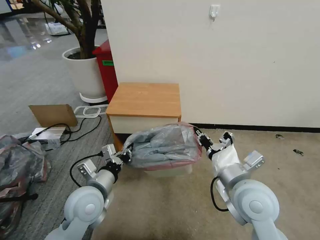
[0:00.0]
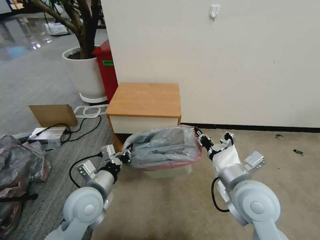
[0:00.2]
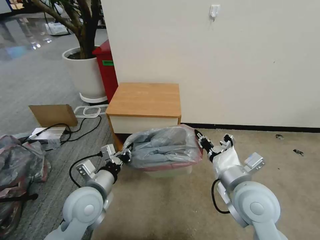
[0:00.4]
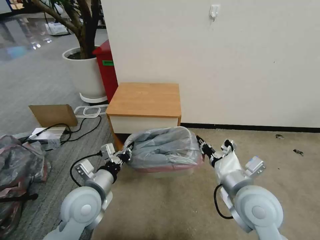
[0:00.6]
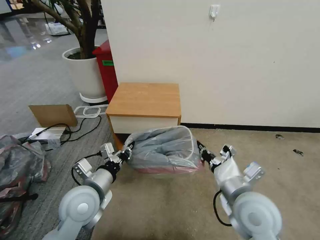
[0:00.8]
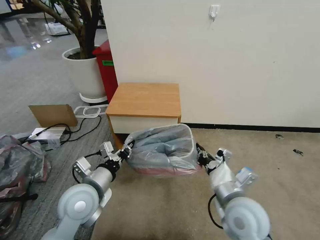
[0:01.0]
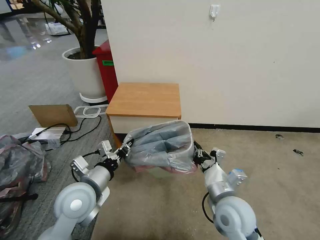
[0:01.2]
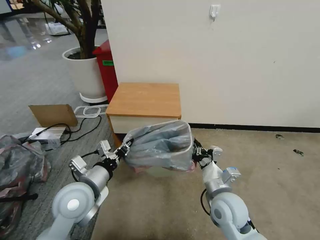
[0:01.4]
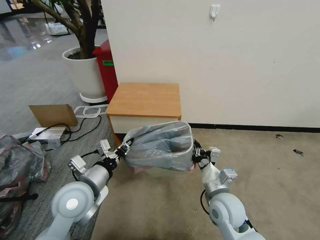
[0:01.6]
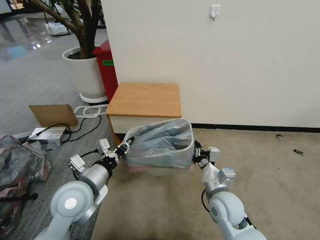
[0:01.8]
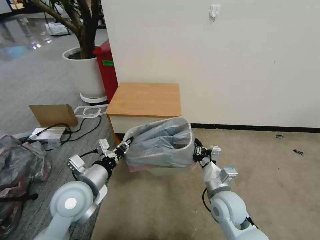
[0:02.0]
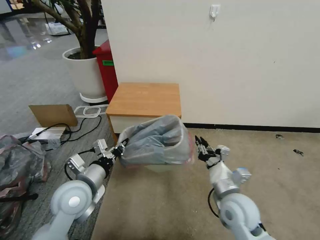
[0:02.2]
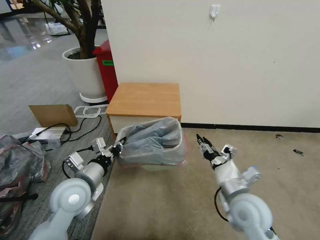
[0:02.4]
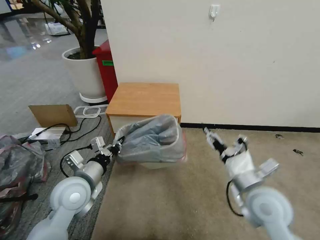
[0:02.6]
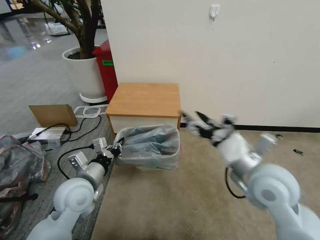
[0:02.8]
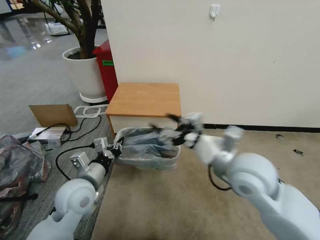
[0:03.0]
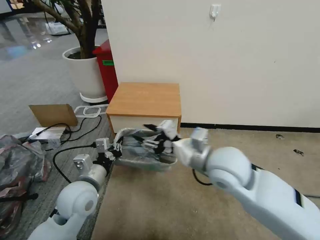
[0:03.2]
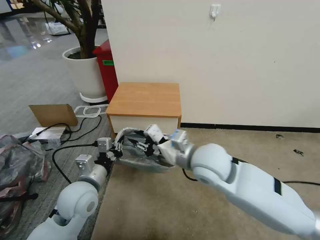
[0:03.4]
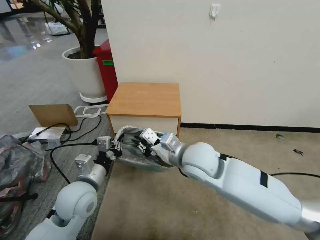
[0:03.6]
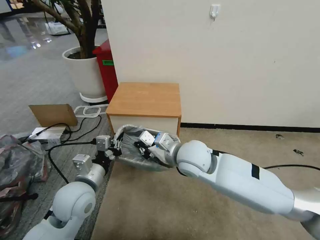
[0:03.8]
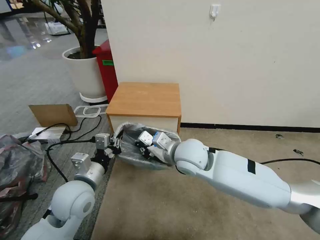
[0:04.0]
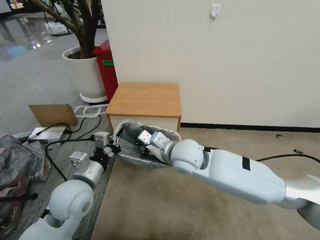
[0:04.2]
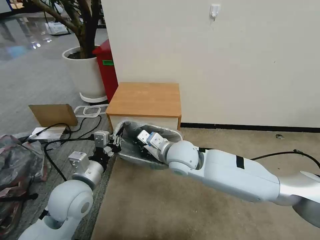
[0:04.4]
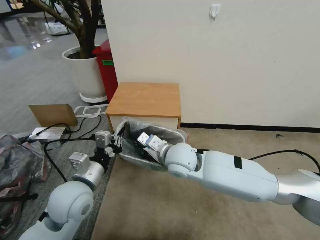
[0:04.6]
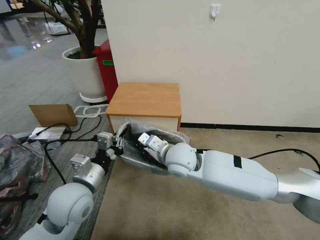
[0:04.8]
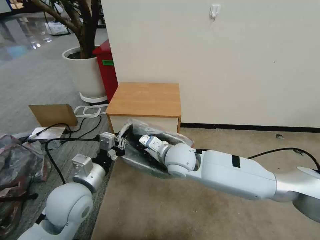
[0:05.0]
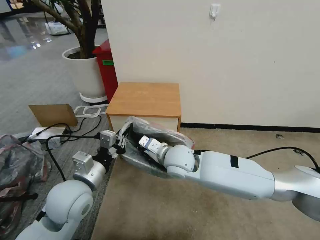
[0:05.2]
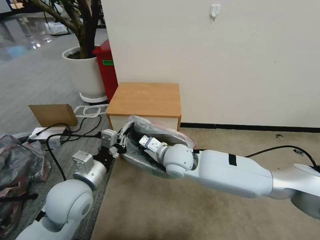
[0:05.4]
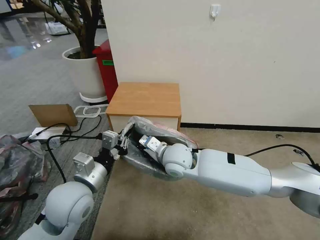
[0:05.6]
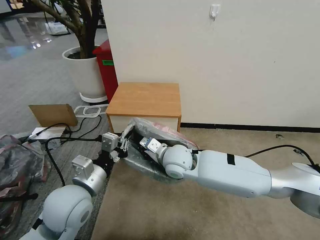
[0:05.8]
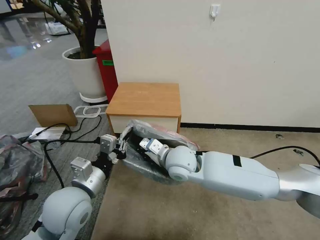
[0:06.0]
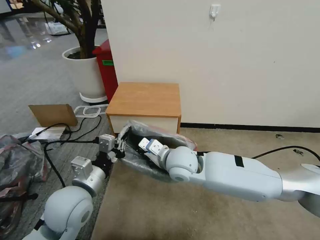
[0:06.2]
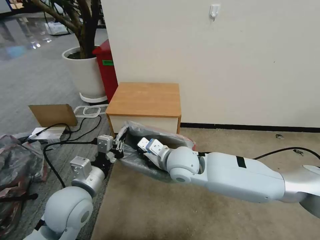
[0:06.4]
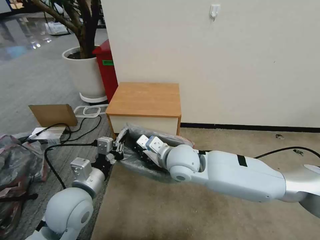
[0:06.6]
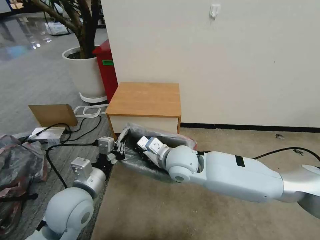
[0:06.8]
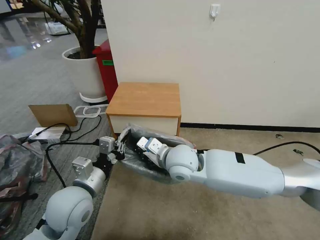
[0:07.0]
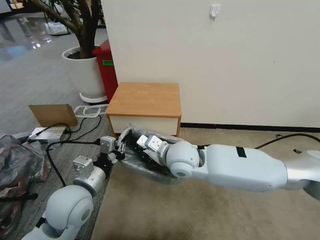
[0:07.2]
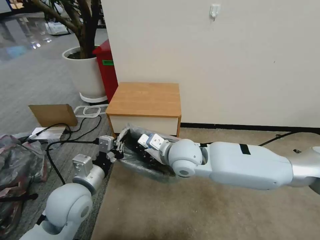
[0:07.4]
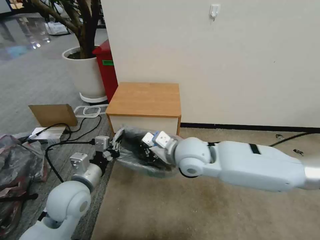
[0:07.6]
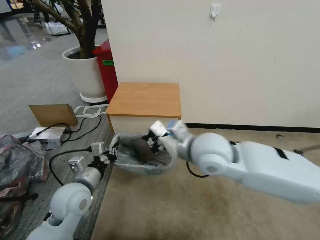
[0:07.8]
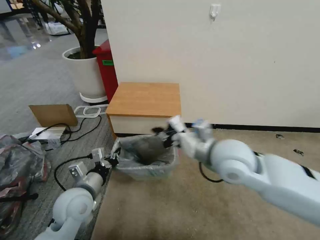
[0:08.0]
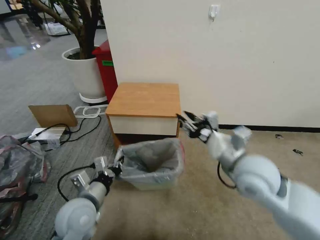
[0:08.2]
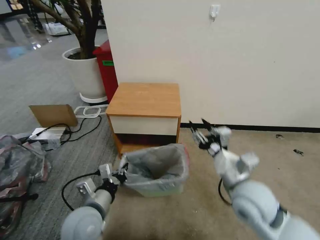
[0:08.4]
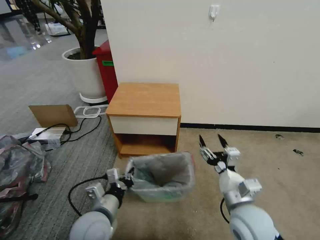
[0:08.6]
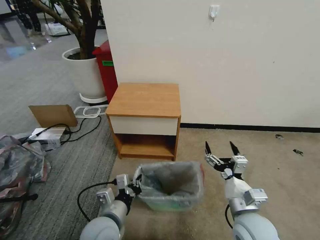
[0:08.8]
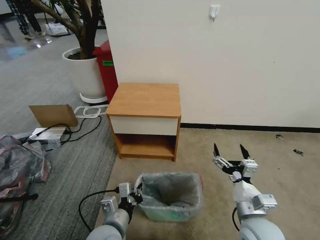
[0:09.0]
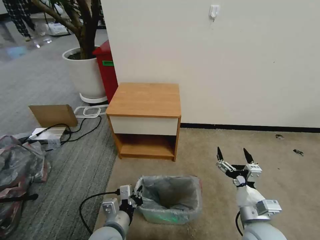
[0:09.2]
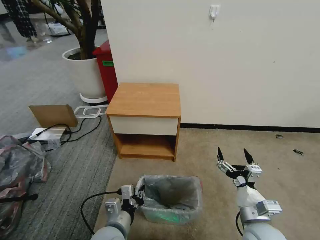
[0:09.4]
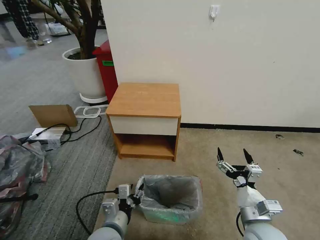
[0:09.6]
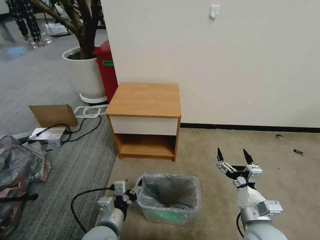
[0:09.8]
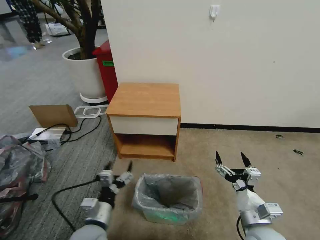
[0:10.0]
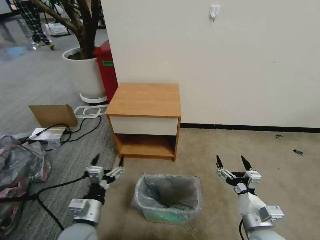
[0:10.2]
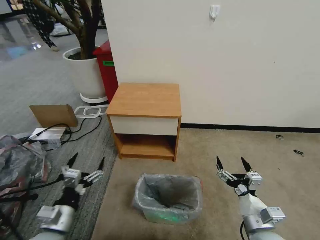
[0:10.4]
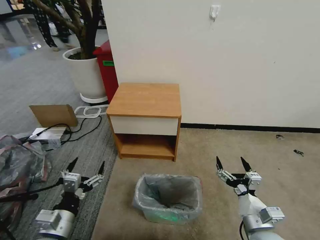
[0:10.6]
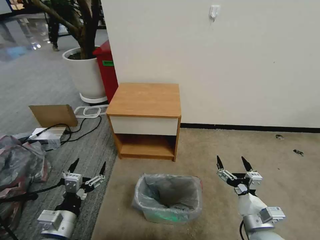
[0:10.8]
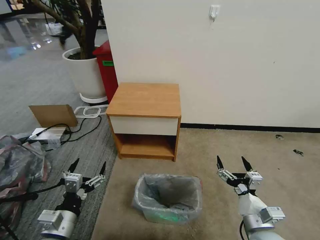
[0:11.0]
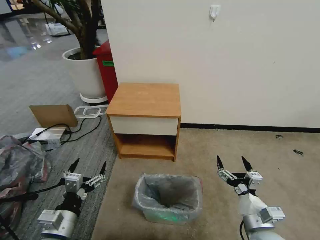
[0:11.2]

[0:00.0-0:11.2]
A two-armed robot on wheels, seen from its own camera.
Task of the whole recording: Pick up the garbage bag from the table and place it over the trash can.
0:00.0 to 0:01.6: The right gripper travels downward by roughly 10 cm.
0:01.6 to 0:03.2: The right gripper goes some 15 cm upward, and opens up.
0:03.2 to 0:04.8: The right gripper shifts some 15 cm to the left, downward and forward, and closes.
0:04.8 to 0:06.4: The grippers move only a little.
0:06.4 to 0:08.0: The right gripper goes roughly 15 cm to the right and upward. Meanwhile the left gripper shifts approximately 5 cm downward.
0:08.0 to 0:09.6: The right gripper moves downward, backward and to the right, roughly 25 cm, and opens its fingers. Meanwhile the left gripper heads to the right, backward and downward, covering about 15 cm, and opens.
0:09.6 to 0:11.2: The left gripper moves to the left, some 15 cm, and opens up.

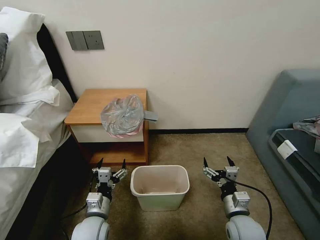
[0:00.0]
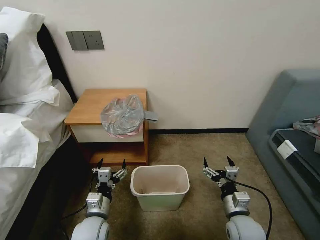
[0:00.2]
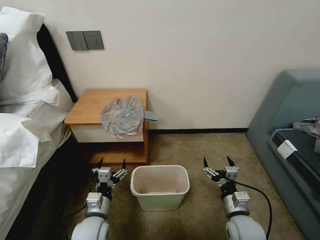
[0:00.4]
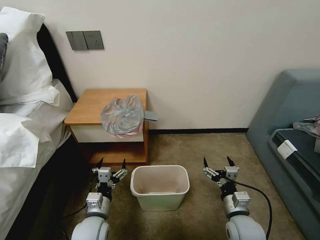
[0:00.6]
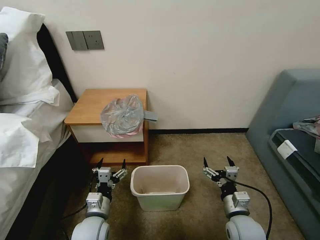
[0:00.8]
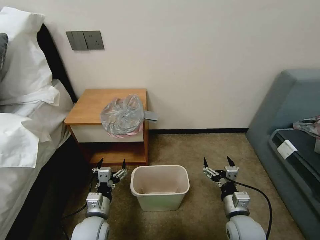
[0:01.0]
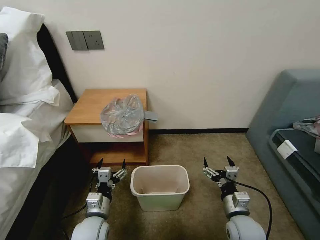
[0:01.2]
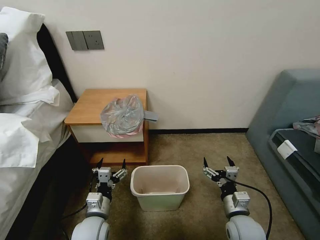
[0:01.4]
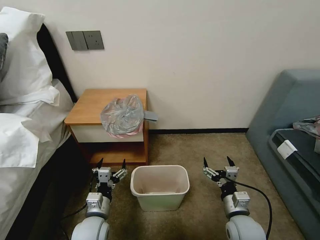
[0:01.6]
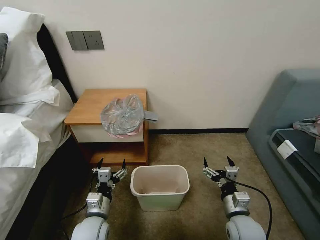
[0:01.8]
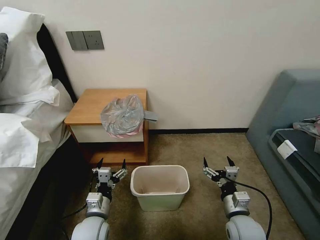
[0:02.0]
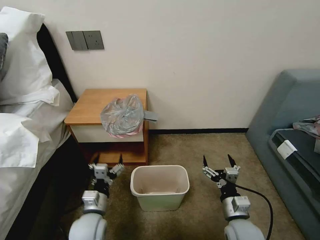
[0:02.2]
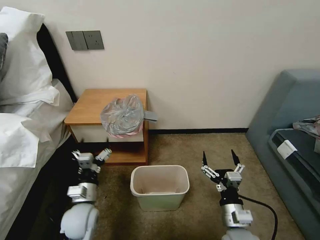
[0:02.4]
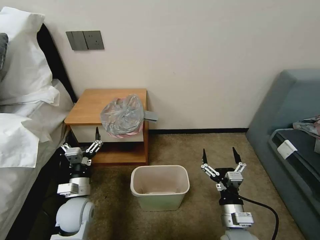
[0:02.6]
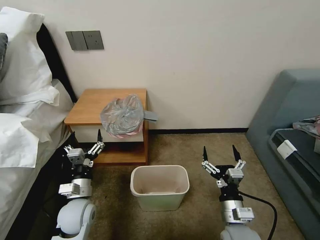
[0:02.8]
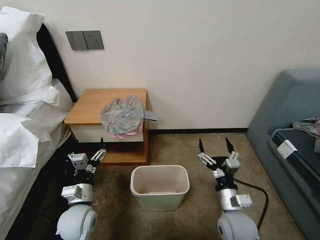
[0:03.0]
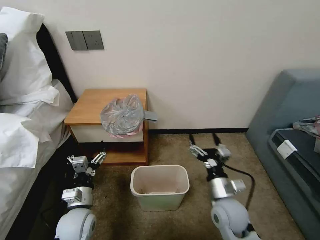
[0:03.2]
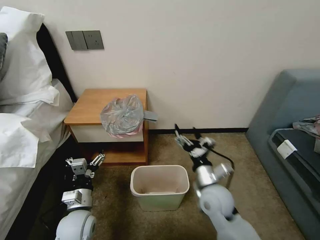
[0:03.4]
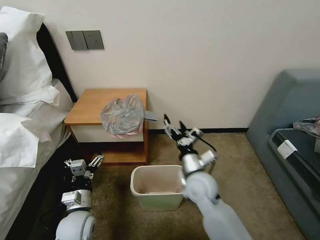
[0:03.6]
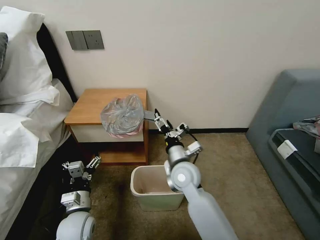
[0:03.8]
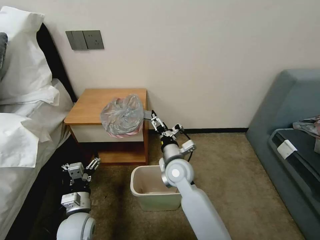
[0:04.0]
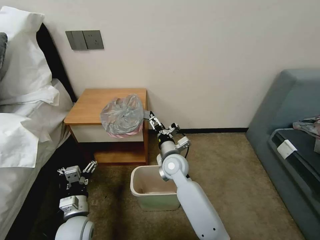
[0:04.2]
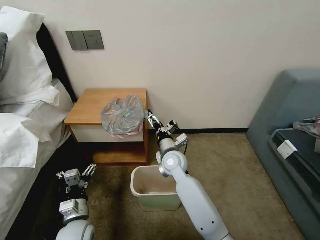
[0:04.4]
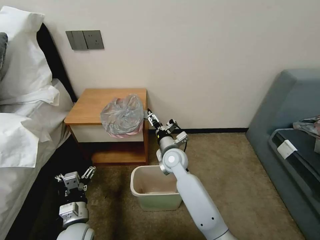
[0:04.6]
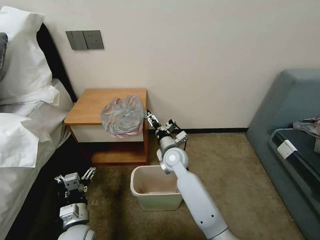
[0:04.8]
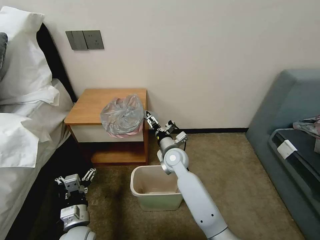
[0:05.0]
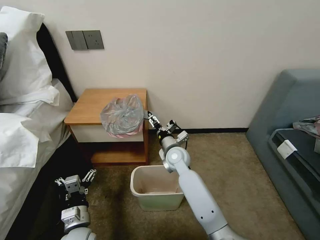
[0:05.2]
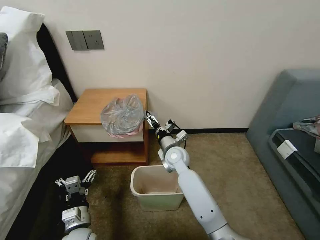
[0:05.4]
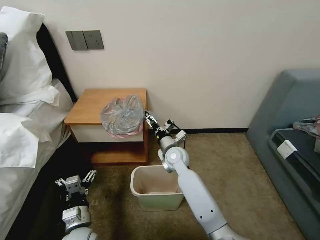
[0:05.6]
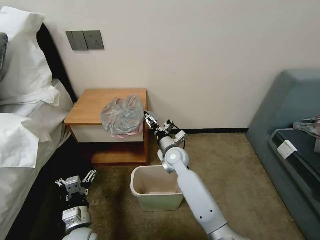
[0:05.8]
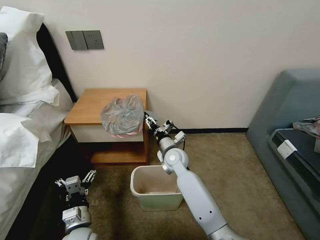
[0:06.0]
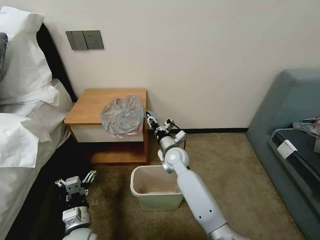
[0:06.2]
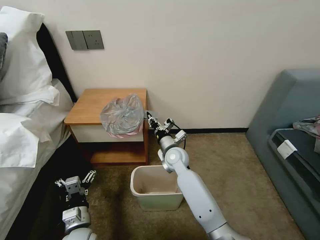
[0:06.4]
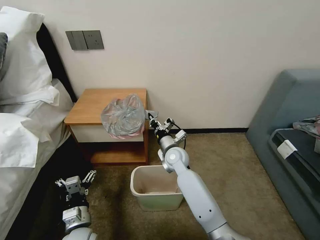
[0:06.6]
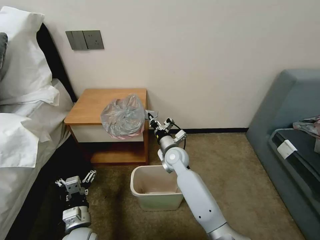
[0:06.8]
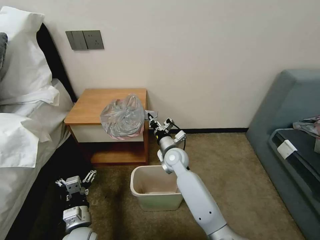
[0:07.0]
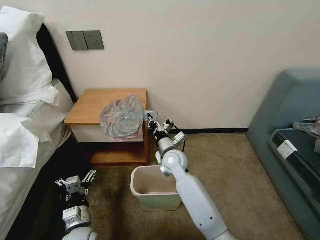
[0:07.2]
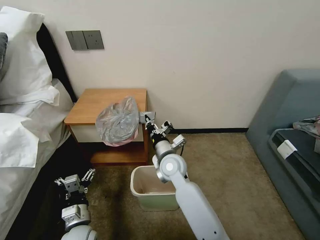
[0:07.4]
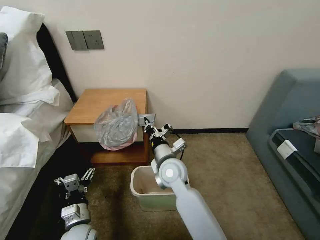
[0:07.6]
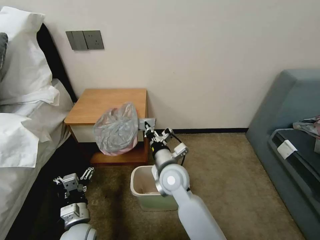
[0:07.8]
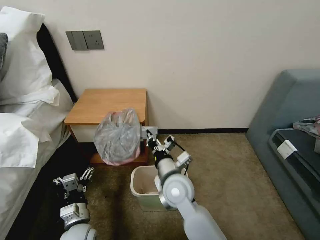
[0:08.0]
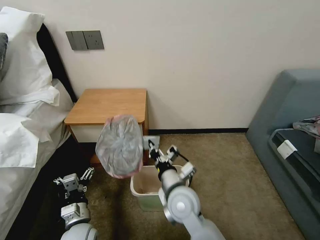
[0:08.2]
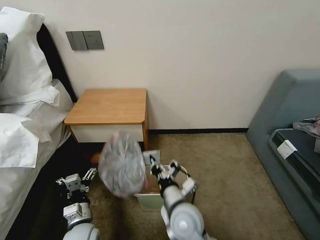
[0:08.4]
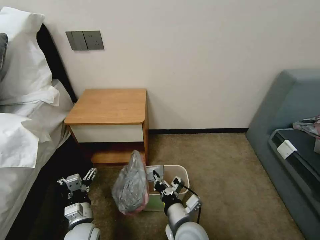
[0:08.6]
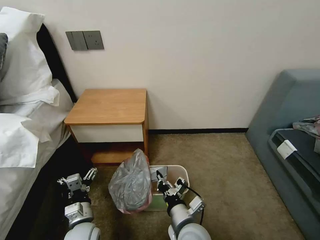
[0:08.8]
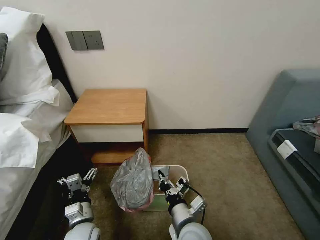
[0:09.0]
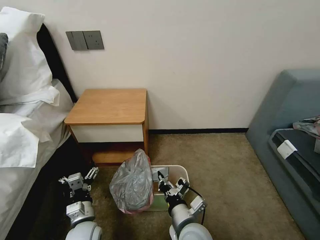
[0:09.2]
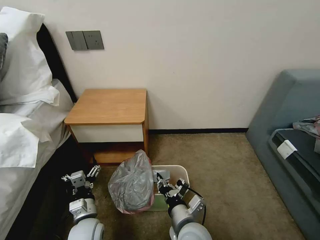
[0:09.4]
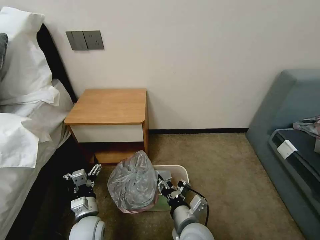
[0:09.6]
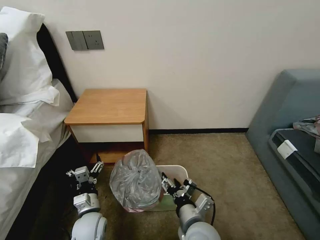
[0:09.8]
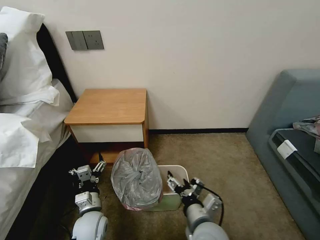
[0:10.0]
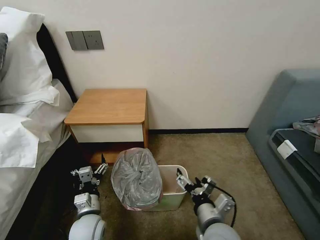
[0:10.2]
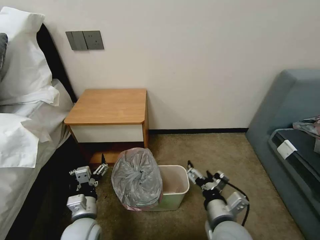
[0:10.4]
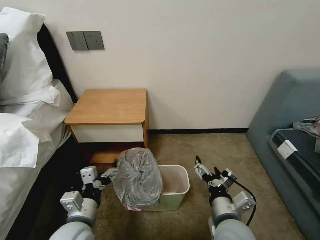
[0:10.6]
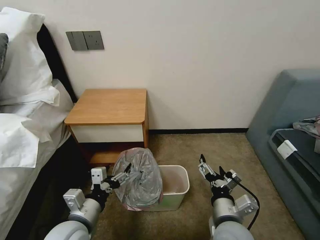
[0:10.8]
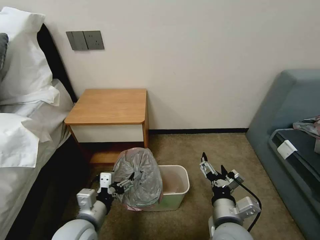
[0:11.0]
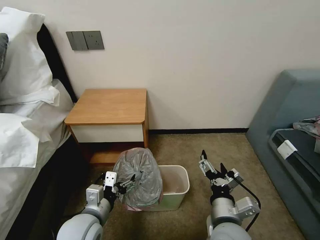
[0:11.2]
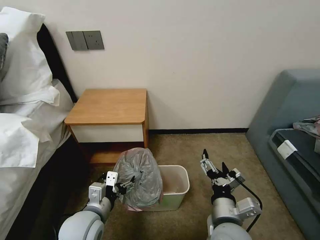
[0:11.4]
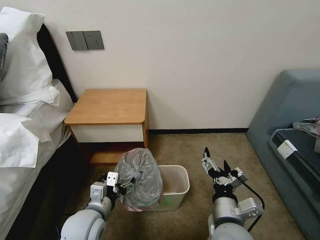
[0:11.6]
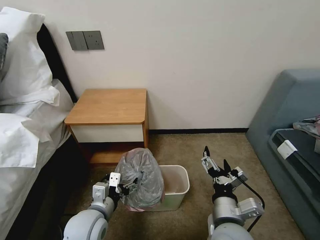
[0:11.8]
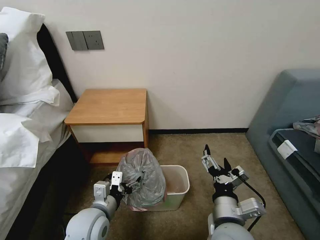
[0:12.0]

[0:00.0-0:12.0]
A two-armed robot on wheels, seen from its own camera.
Task of the whole recording: Pick up the garbage bag from the table and place it over the trash can.
0:01.6 to 0:03.0: The left gripper shifts by some 5 cm.
0:03.0 to 0:04.4: The right gripper travels forward and to the left by some 25 cm.
0:04.4 to 0:06.0: The grippers move only a little.
0:06.0 to 0:07.6: The right gripper goes some 10 cm backward and upward, and closes its fingers.
0:07.6 to 0:09.0: The right gripper moves backward and downward, about 20 cm.
0:09.0 to 0:10.4: The right gripper moves to the right and upward, about 10 cm, and opens up.
0:10.4 to 0:12.0: The left gripper heads upward, covering roughly 5 cm.
